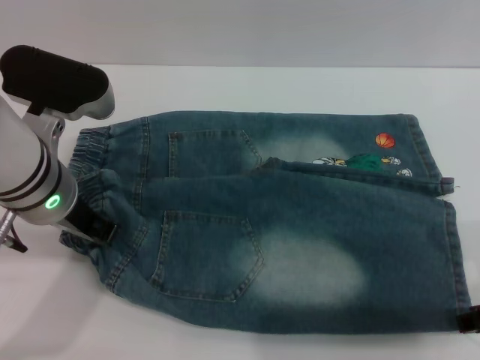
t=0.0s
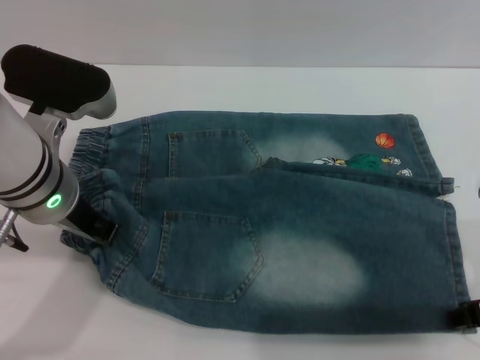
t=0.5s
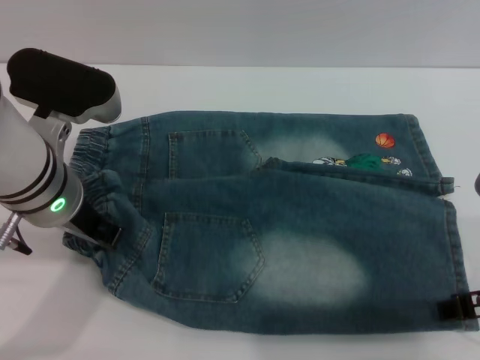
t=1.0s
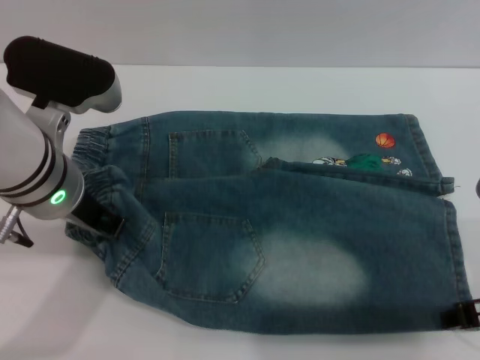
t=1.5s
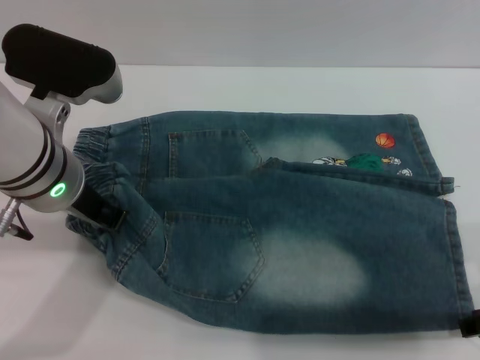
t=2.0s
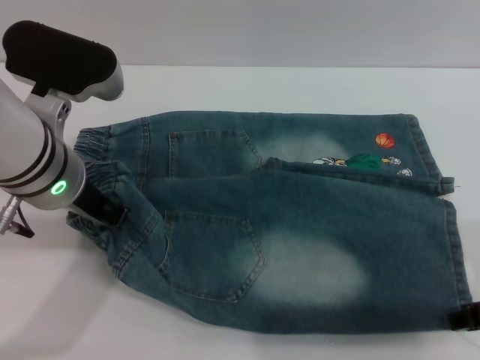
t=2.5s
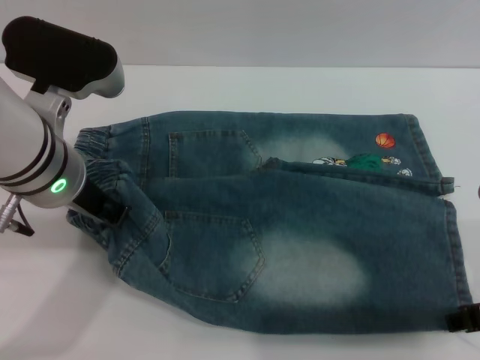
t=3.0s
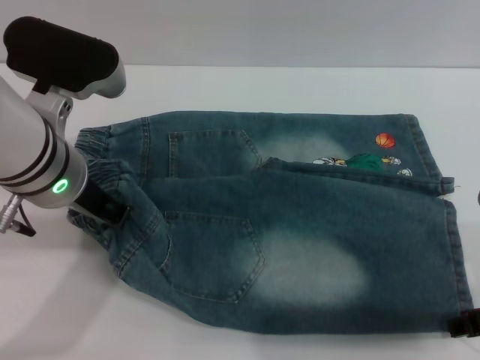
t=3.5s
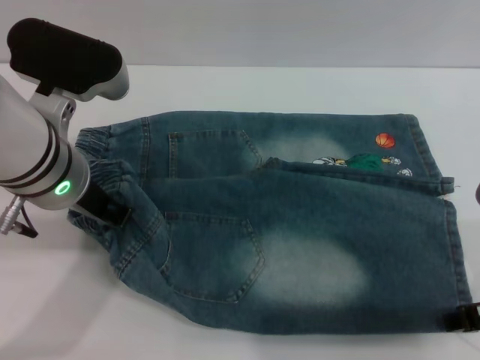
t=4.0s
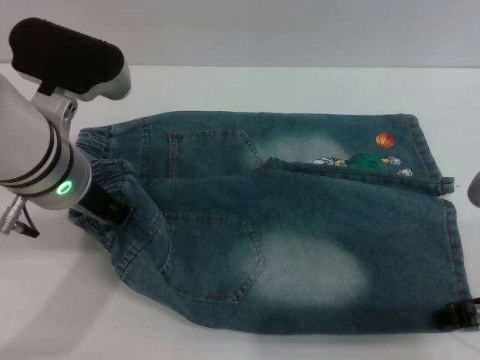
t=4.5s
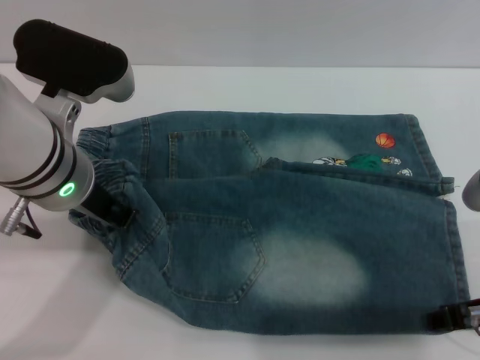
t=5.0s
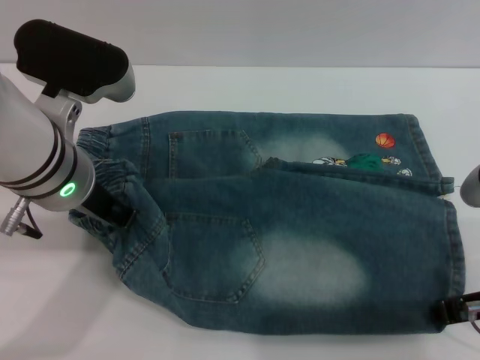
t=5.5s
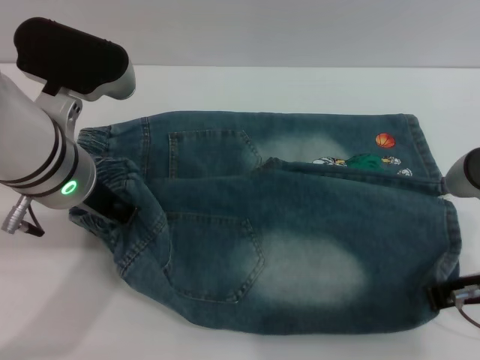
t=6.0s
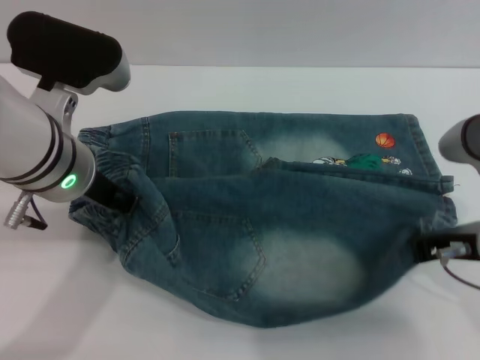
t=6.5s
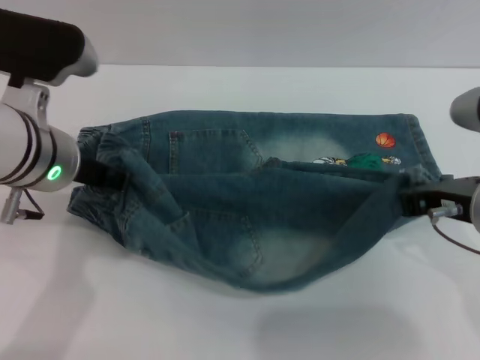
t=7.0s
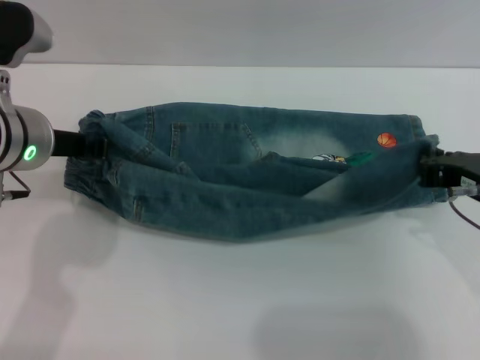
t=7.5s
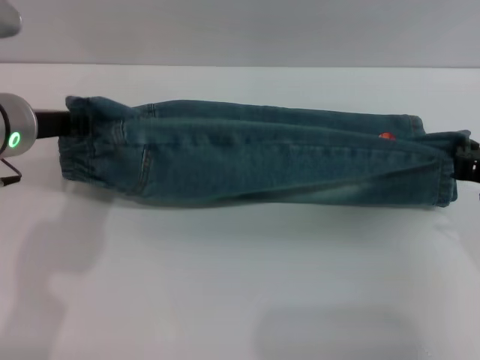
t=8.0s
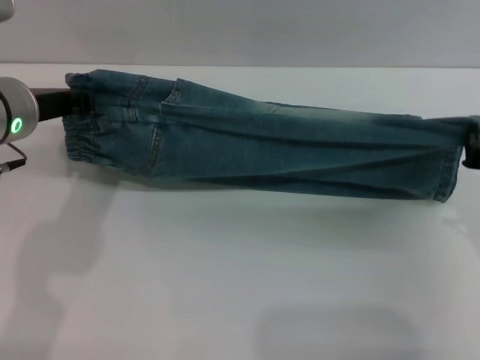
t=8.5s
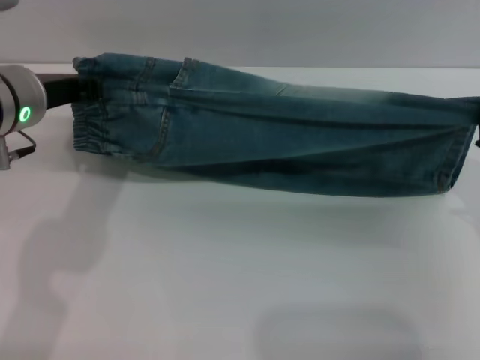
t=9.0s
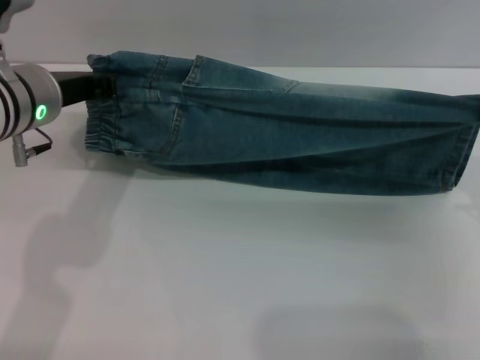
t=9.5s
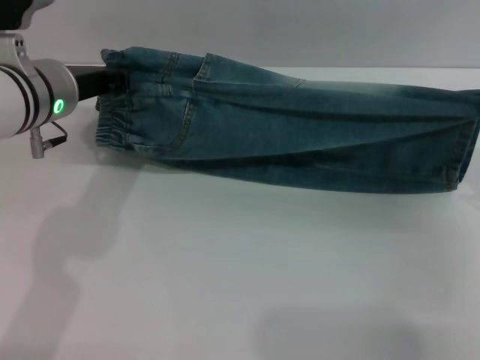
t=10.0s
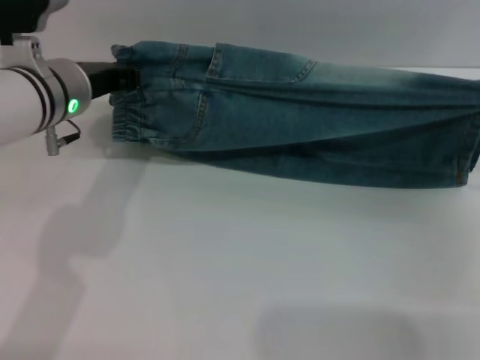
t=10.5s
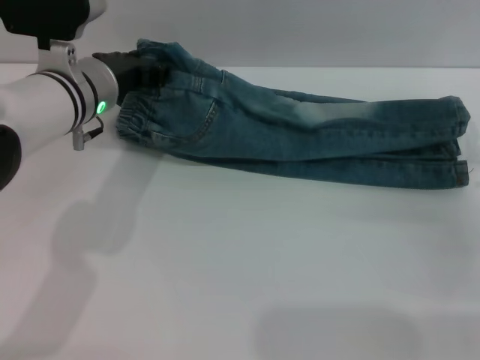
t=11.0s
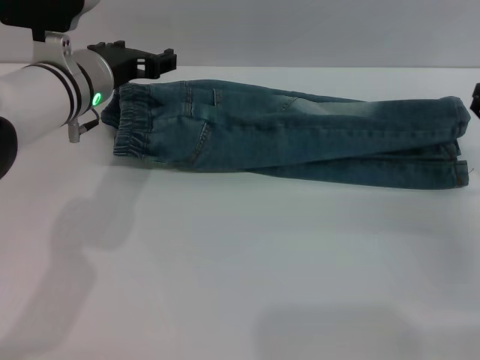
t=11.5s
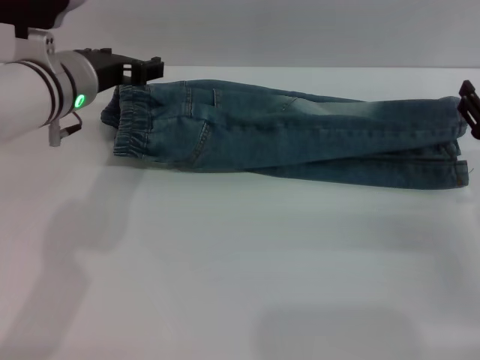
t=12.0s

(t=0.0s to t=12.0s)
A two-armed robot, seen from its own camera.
Step, t=0.0s - t=11.5s: Fold the bottom of the pants upward with both grippers.
t=0.0s - t=2.0s: The grippers stay close to where they were, moving slightly.
t=2.0s - t=4.0s: The two grippers keep their place.
t=4.0s - t=6.0s: The right gripper closes its fingers.
t=6.0s - t=8.0s: The left gripper moves to the left, approximately 5 cm. Meanwhile the right gripper ends up about 5 cm from where it was.
t=8.0s - t=10.0s: The right gripper shifts by approximately 5 cm.
t=10.0s - t=12.0s: The right gripper changes place by roughly 5 cm, and opens up. The left gripper opens its fingers.

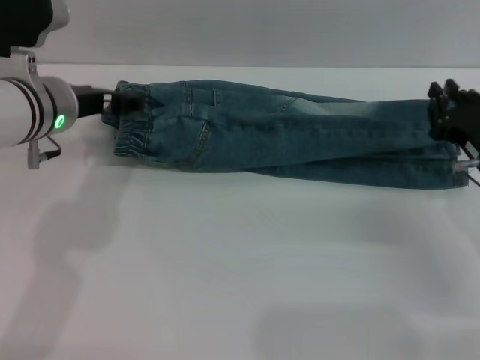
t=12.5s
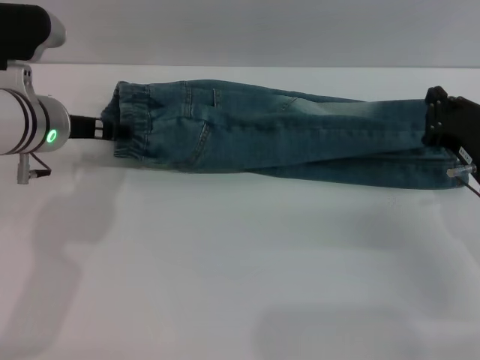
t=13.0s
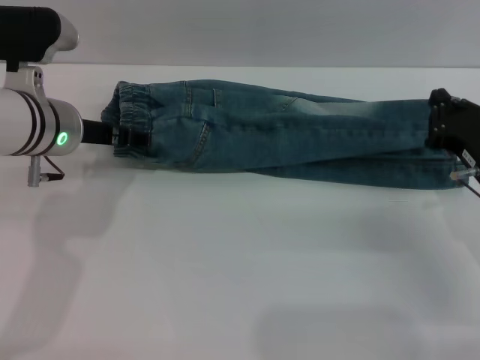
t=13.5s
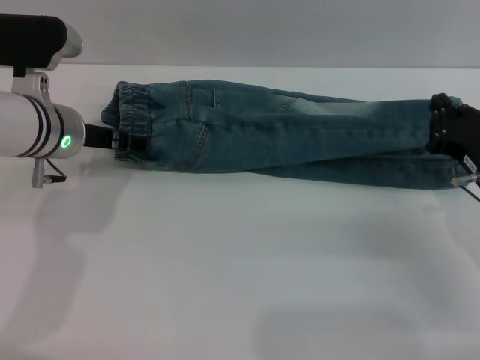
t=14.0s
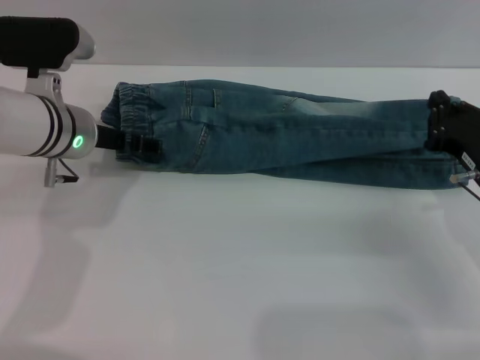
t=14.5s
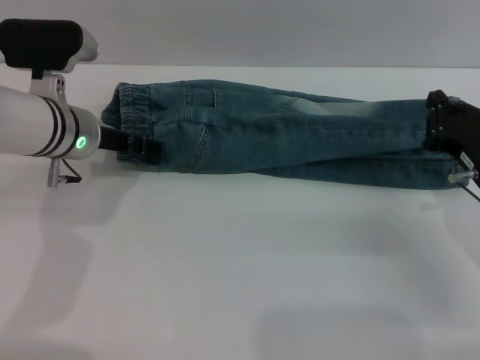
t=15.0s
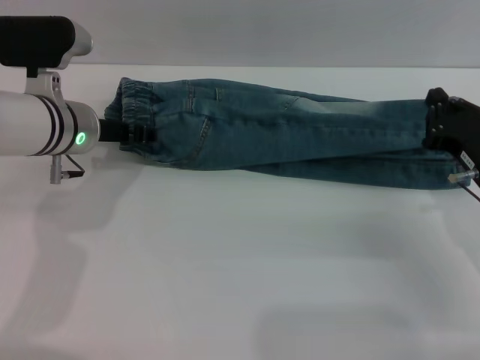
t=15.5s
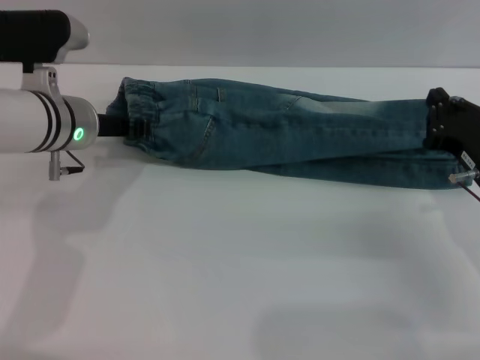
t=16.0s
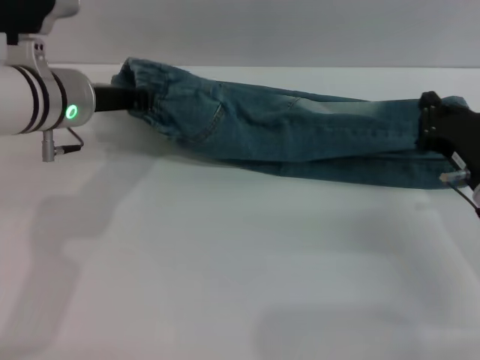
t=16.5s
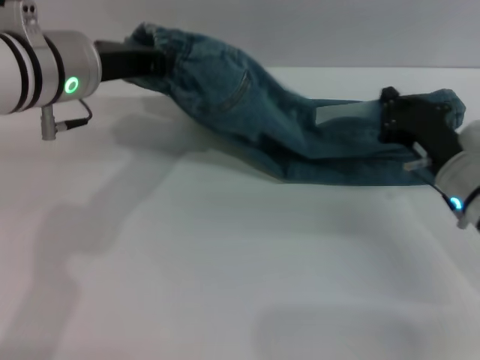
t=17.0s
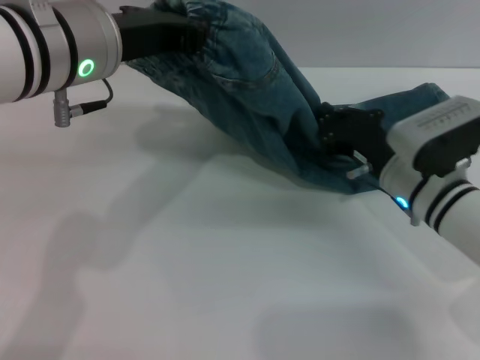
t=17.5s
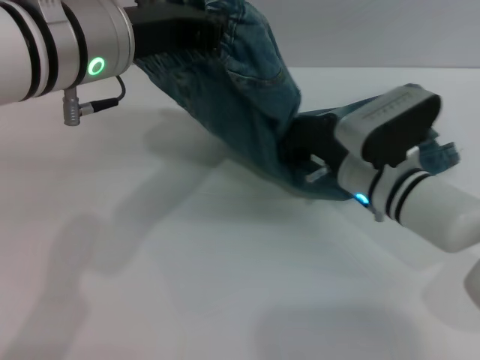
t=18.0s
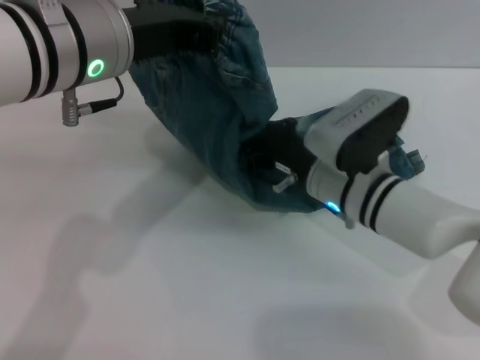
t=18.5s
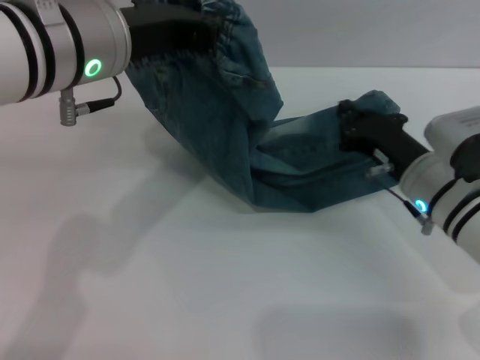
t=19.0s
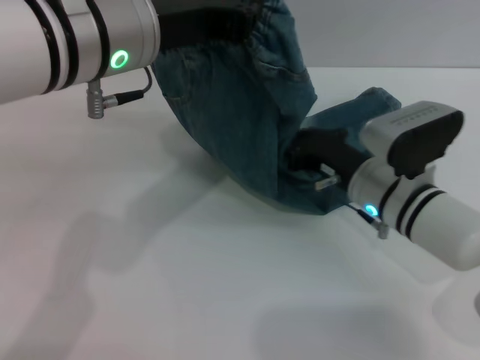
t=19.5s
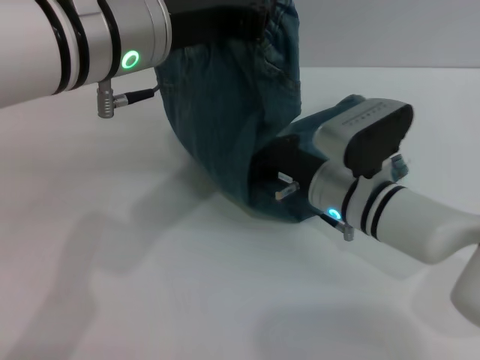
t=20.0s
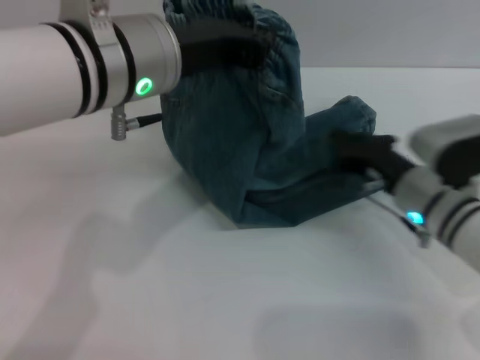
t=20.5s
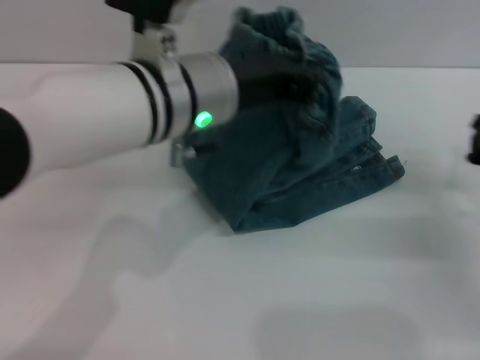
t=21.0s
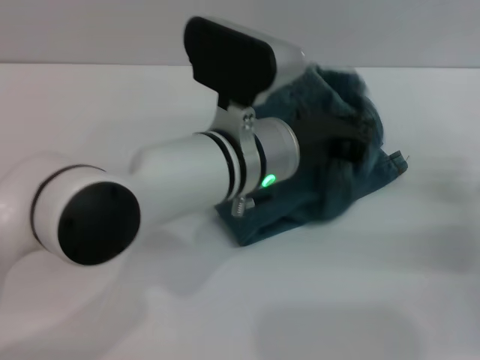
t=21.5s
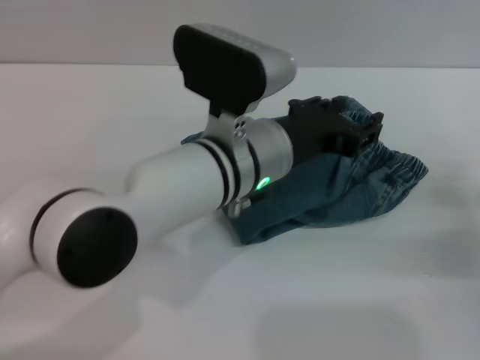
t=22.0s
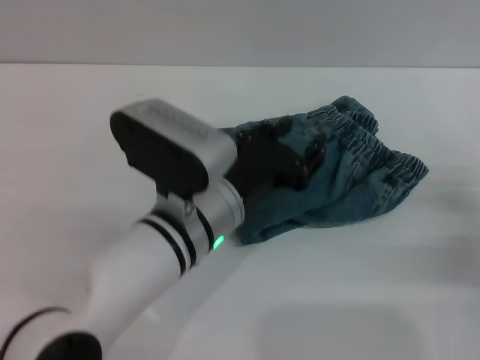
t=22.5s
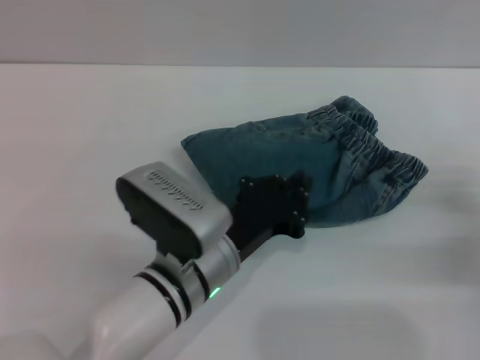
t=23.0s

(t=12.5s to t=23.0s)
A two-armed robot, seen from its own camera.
Step, t=12.5s - t=22.0s: Fold the pants from left to right with the left gripper.
t=12.5s - t=14.5s: The right gripper closes.
t=14.5s - t=16.5s: The left gripper closes.
t=16.5s - t=19.0s: The right gripper is displaced to the left by some 5 cm; the left gripper is displaced upward, backward and to the right by some 10 cm.
t=19.0s - t=21.0s: The left gripper shifts roughly 5 cm to the right, while the right gripper heads to the right, covering some 10 cm.
t=21.0s - t=23.0s: The left gripper is displaced downward and backward by some 15 cm, and opens and closes again.

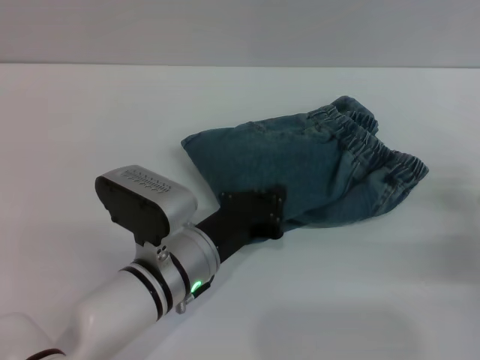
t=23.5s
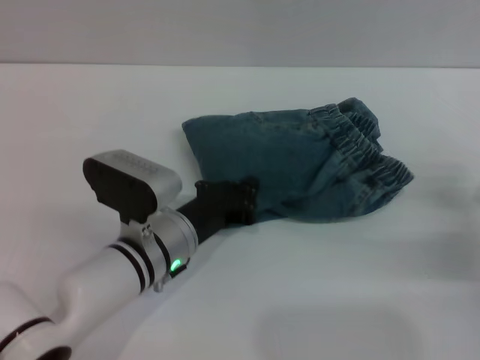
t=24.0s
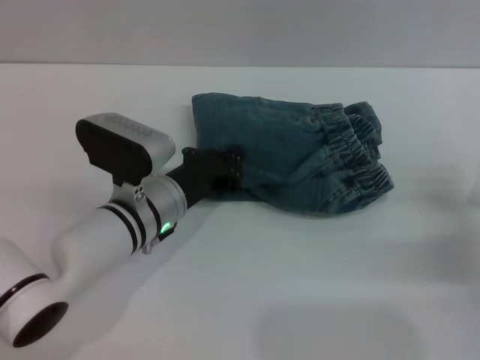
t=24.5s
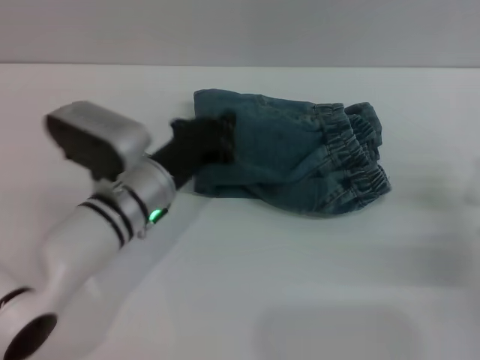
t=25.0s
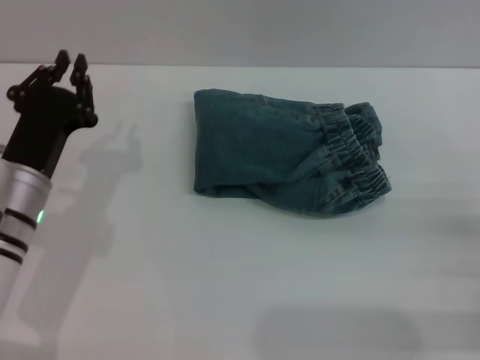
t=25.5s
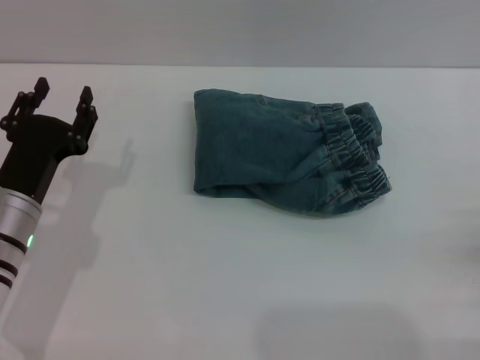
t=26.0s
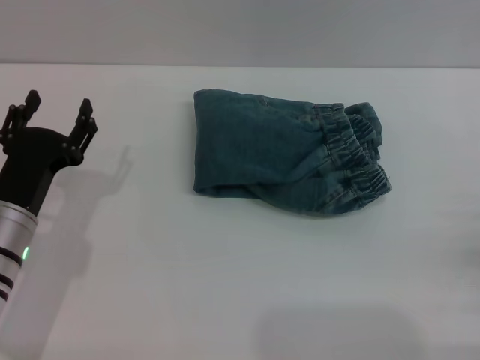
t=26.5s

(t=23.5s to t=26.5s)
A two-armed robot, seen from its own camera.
Step, t=23.5s - t=25.0s: Place the folded trousers onto the center area with the left grippers.
t=23.5s - t=25.0s: The left gripper travels forward by approximately 5 cm.
t=25.0s - t=26.5s: The left gripper goes roughly 15 cm to the left and backward, and opens its fingers. Meanwhile the right gripper travels backward by some 10 cm, and opens.
